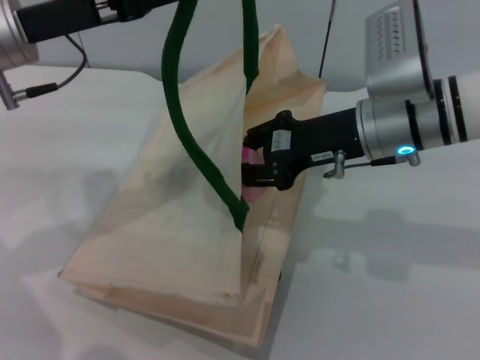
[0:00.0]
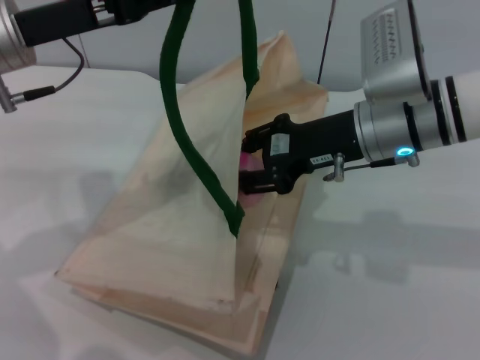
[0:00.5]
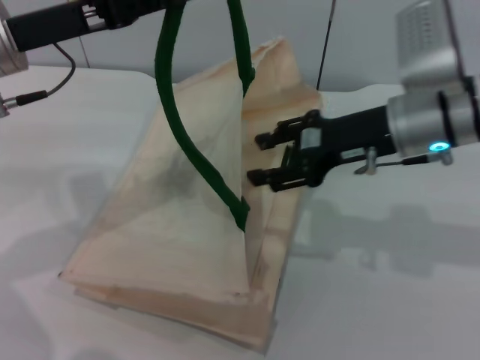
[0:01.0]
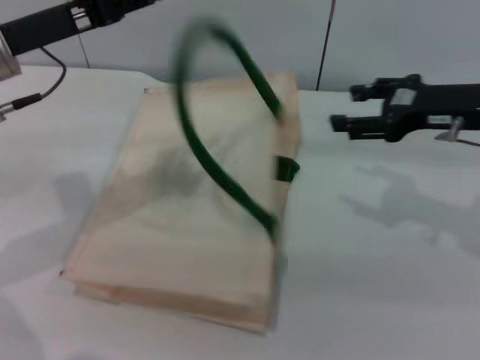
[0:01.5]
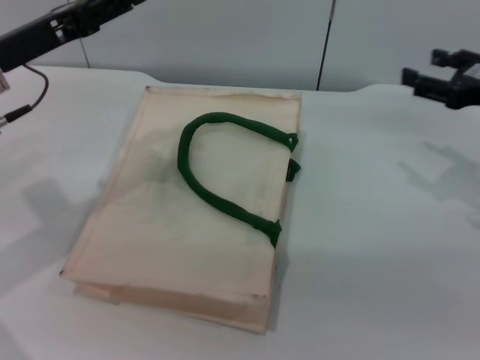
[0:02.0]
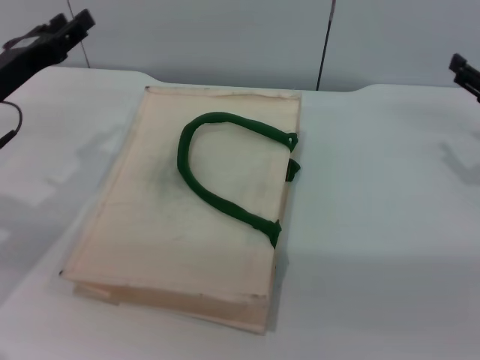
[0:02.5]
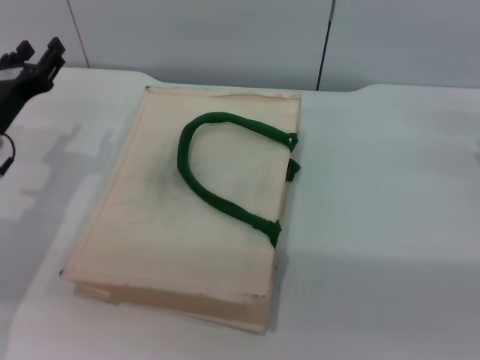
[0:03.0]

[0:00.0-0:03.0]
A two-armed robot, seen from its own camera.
Task of the whole recording: pick up the peach from the table and place it in the white handbag.
0:00.0 to 0:01.5: The right gripper moves to the right, roughly 10 cm, and opens up.
0:01.5 to 0:03.0: The right gripper goes approximately 10 cm to the right and downward. Meanwhile the left gripper heads downward, covering roughly 10 cm, and opens up.
